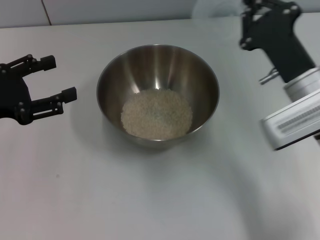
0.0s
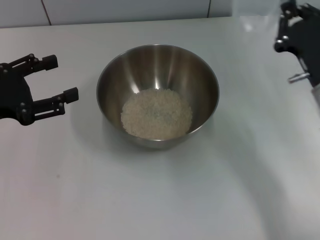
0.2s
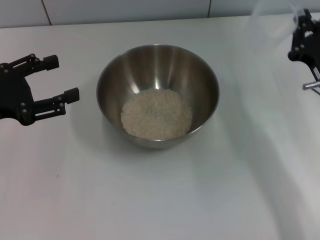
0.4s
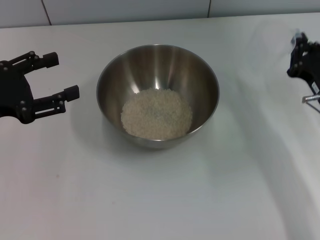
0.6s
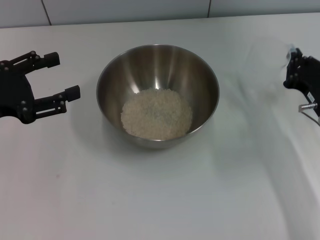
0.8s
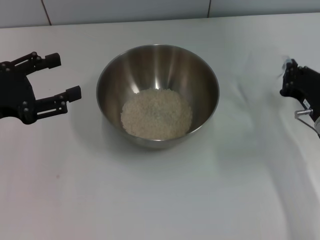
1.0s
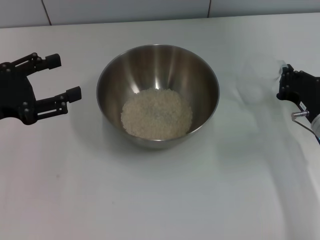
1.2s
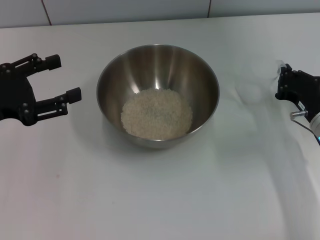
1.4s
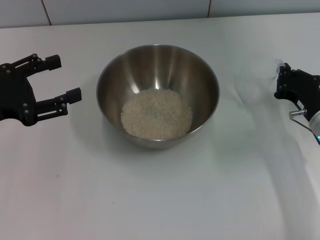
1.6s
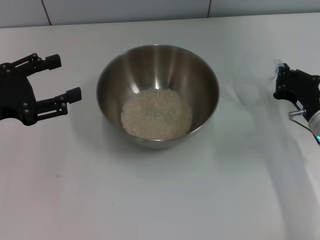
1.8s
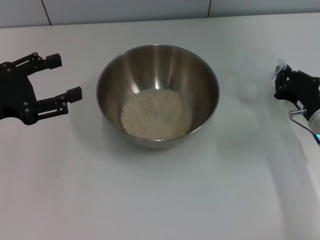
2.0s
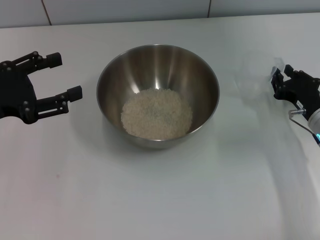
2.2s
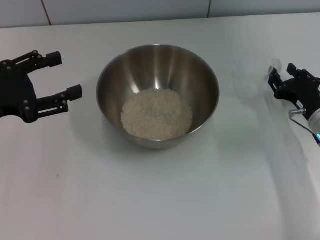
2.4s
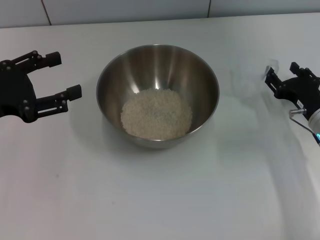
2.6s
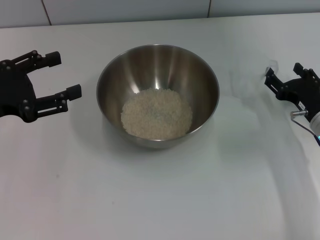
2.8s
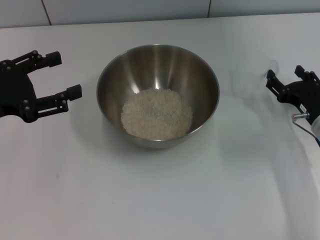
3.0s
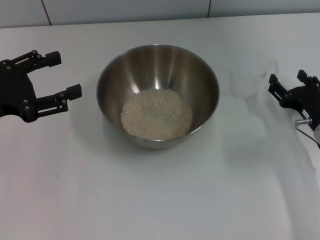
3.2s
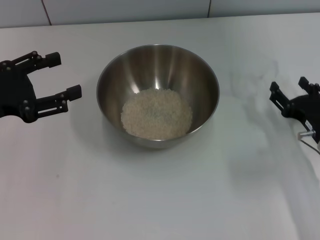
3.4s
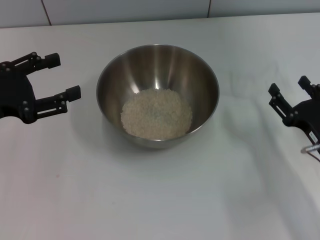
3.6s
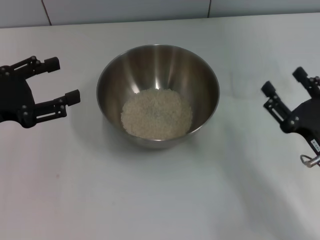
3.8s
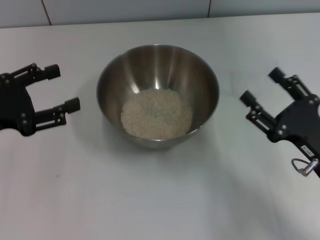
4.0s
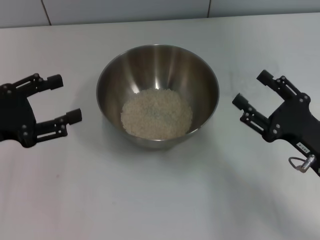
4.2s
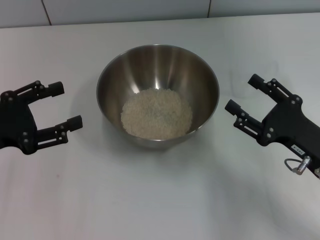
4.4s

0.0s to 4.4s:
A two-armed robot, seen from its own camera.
Task of the whole recording: Place the bowl in the middle of the table with one hand and pour the rice from the grain cup into it with the other hand.
Step, 0.0s to 3.2s: Place the cup on the table with the right gripper.
0.0s to 1.4s: The right gripper heads downward and to the right, covering some 10 cm.
1.4s to 3.0s: The right gripper opens its fingers.
3.0s to 4.4s: The right gripper shifts some 5 cm backward.
